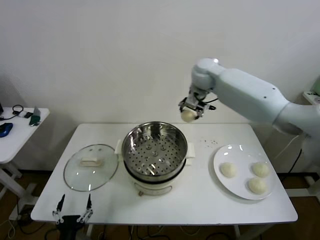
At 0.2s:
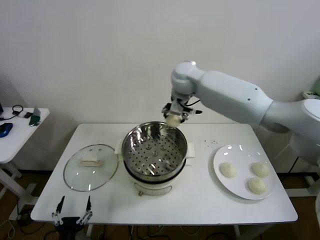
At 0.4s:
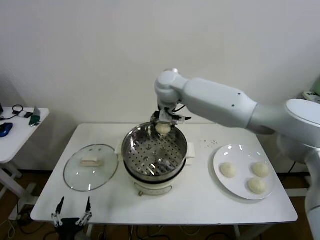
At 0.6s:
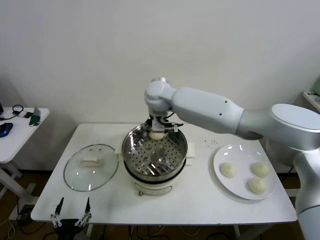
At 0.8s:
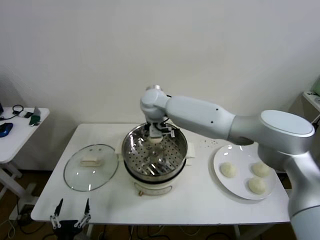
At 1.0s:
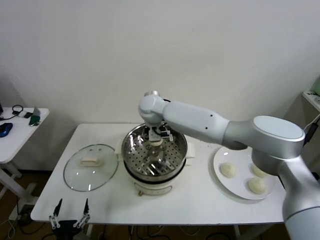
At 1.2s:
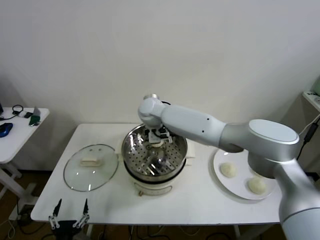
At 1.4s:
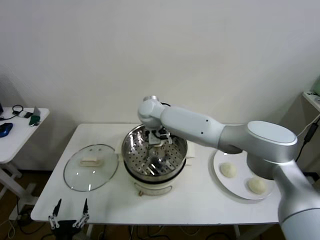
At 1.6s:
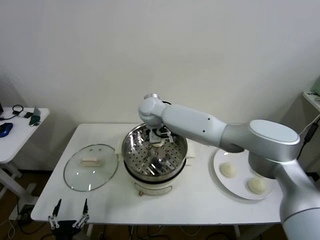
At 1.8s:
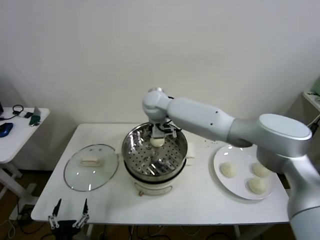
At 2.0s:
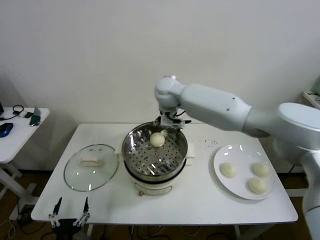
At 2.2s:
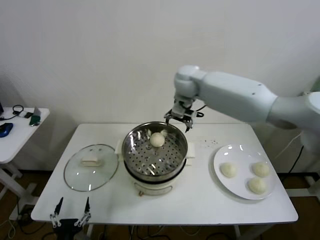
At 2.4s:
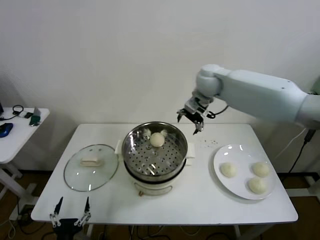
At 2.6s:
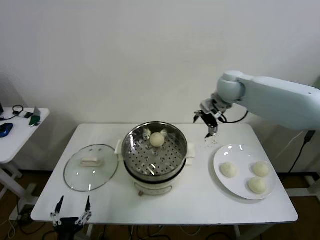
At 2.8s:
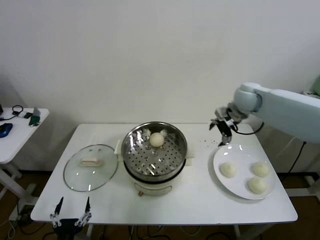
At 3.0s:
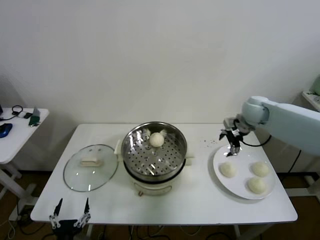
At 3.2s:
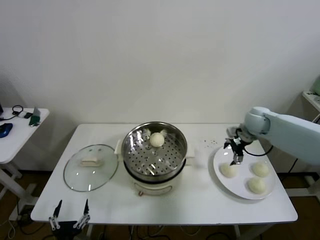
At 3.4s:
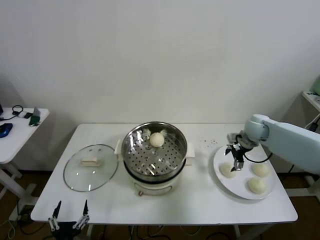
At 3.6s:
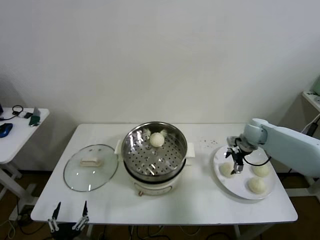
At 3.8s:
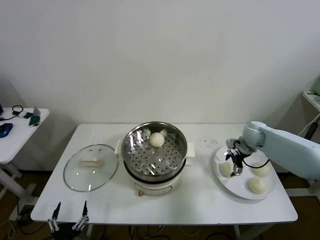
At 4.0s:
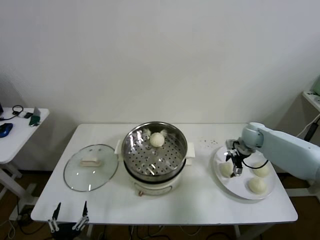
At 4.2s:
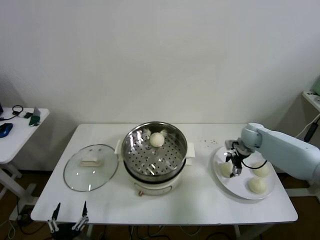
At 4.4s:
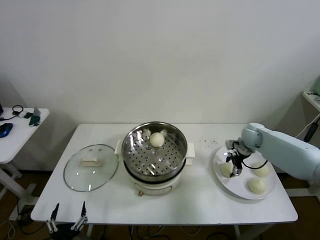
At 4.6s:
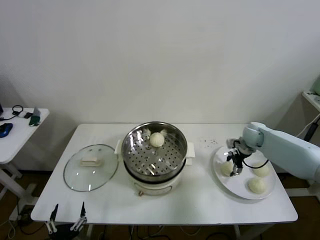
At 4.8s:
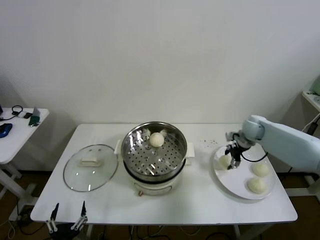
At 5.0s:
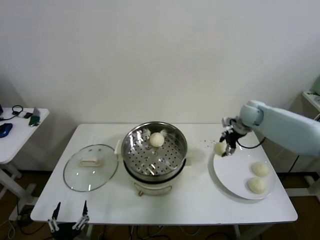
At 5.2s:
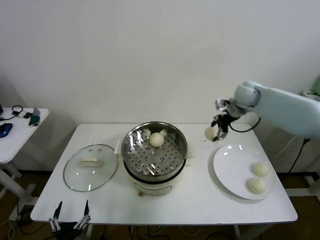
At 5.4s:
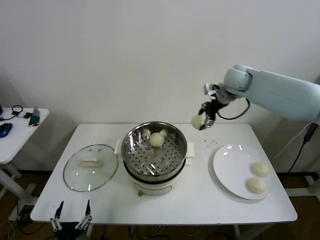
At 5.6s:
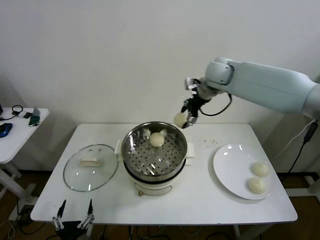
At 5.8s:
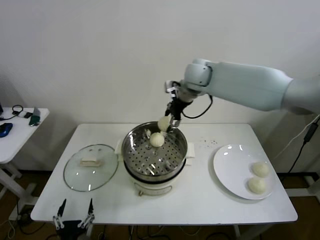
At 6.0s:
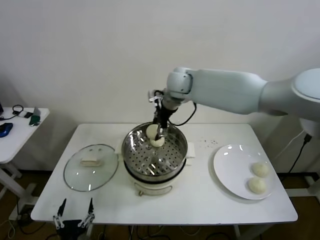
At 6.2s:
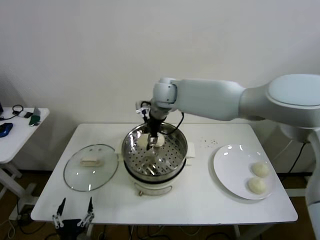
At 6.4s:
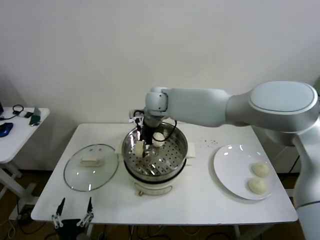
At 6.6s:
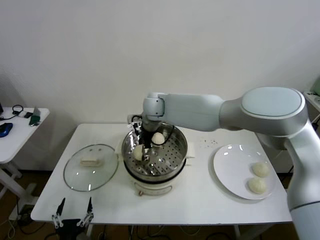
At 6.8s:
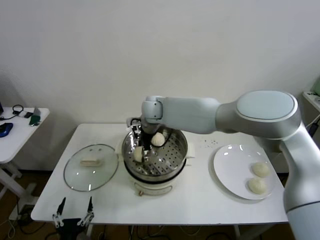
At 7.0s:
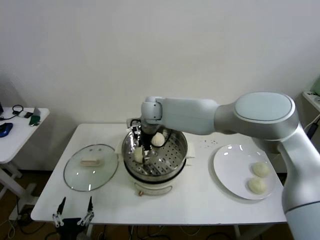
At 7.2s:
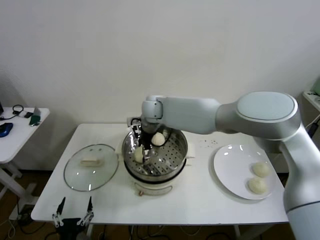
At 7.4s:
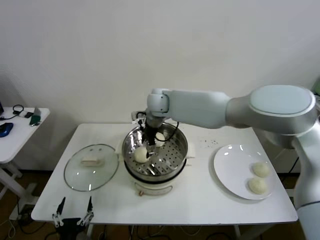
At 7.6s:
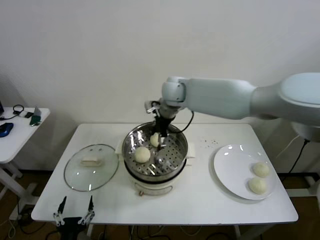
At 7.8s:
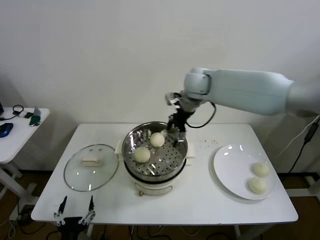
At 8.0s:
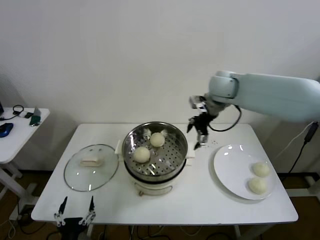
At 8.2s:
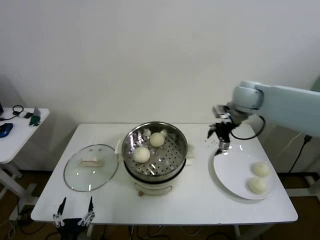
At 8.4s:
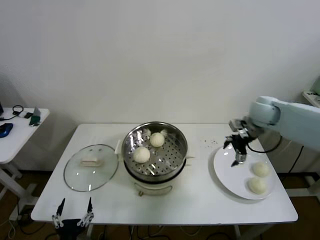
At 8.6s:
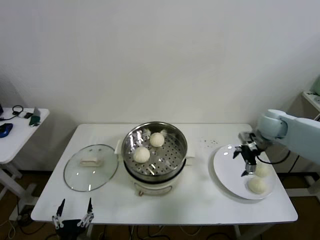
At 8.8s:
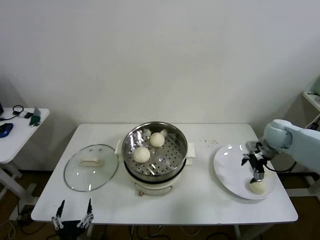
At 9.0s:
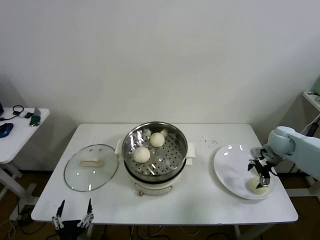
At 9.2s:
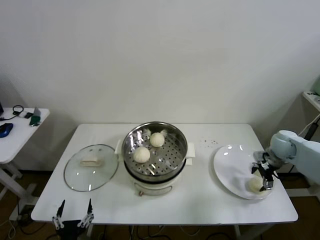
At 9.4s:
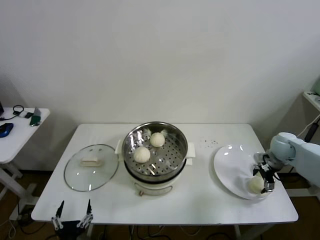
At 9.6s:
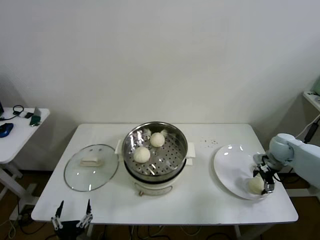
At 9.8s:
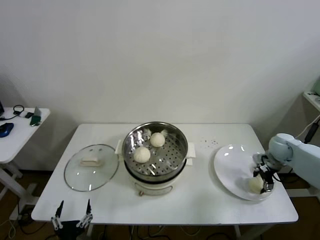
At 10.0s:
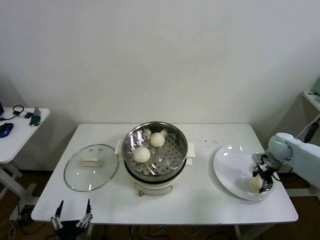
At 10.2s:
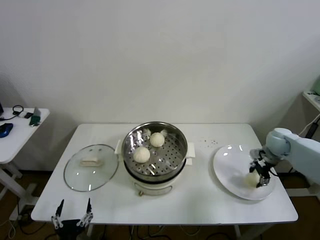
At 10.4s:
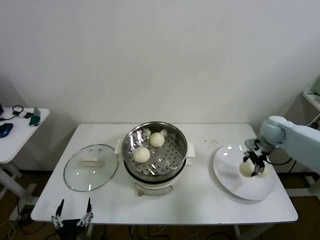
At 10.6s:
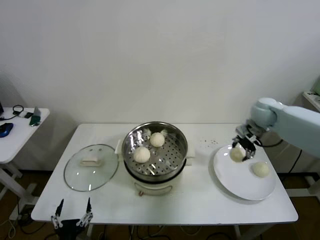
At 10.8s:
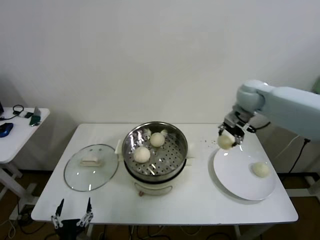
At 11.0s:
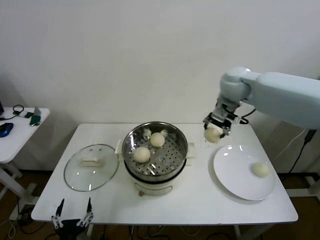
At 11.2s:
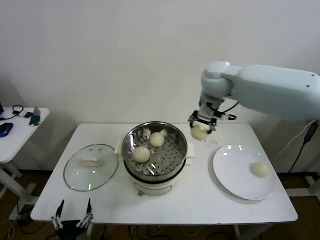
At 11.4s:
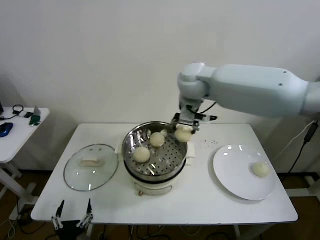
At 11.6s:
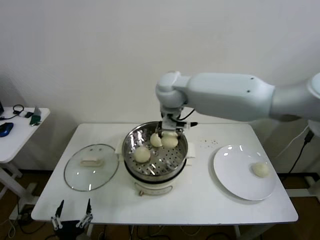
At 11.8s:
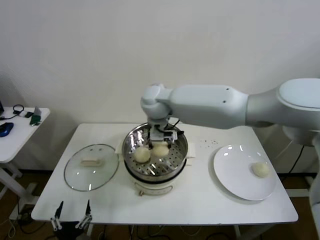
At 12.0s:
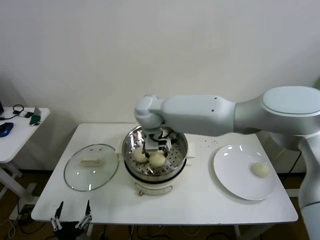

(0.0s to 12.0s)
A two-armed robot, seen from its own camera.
Step, 0.0s - 1.4s: Place the baozi on the steamer with right gripper.
Step, 1.6s - 4.2s: Grasp the baozi in the plate with right gripper.
Step, 4.4s - 7.2s: Place the baozi on the steamer with right gripper.
Step, 7.4s - 10.0s: Grasp the baozi in the plate with right gripper.
0.0s - 1.6s: The right gripper travels to the left and downward by some 15 cm, and opens its fingers.
1.6s - 3.0s: The right gripper goes roughly 35 cm to the right.
3.0s - 4.4s: The right gripper goes about 10 cm downward, and closes its fingers.
4.4s - 6.0s: The right gripper heads to the left and upward, covering approximately 40 cm.
6.0s - 7.6s: The right gripper travels to the left and back again, about 5 cm each way, and opens up.
7.6s - 9.0s: The right gripper goes roughly 40 cm to the right and downward.
9.0s - 10.4s: The right gripper ends up roughly 5 cm from where it was, and closes.
10.4s - 12.0s: The right gripper is displaced to the left by roughly 40 cm.

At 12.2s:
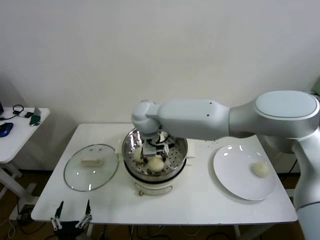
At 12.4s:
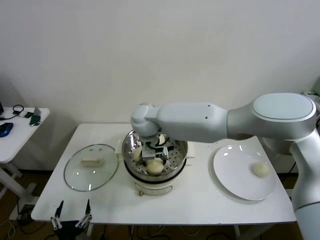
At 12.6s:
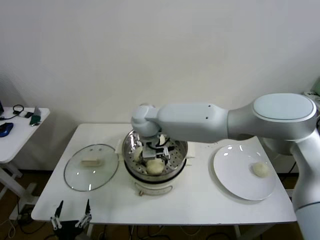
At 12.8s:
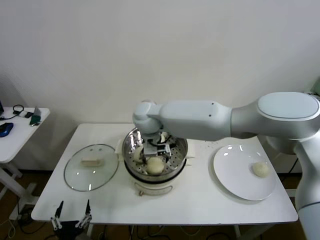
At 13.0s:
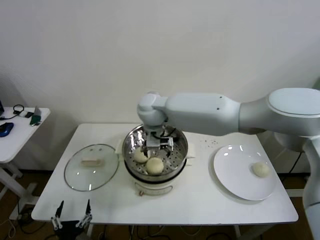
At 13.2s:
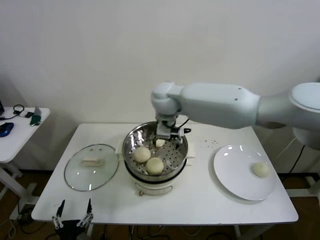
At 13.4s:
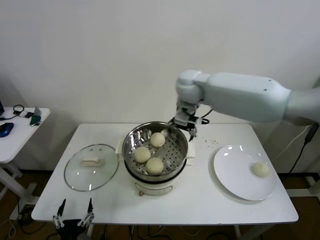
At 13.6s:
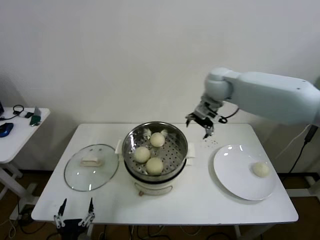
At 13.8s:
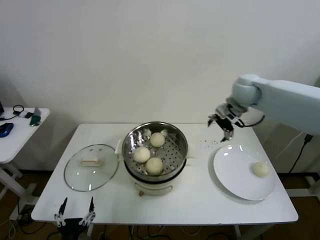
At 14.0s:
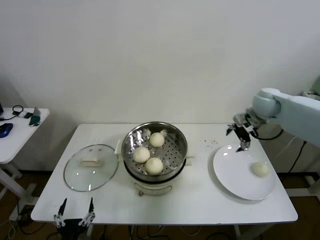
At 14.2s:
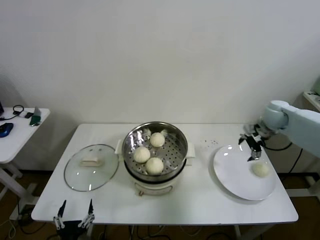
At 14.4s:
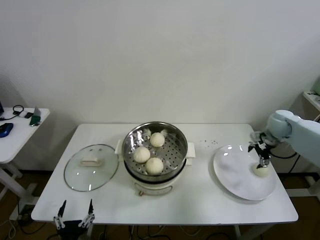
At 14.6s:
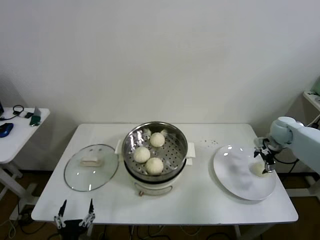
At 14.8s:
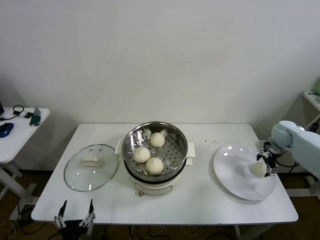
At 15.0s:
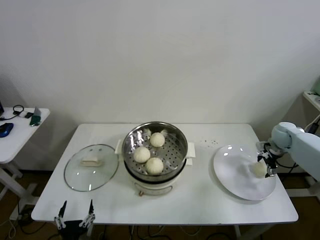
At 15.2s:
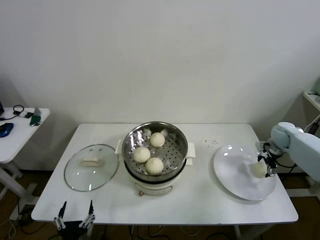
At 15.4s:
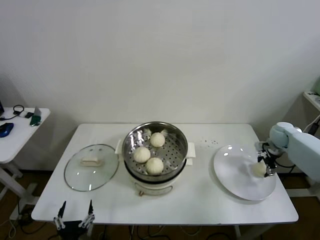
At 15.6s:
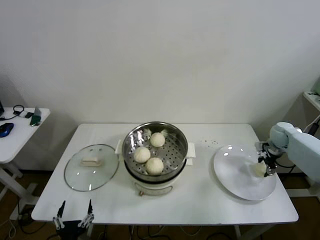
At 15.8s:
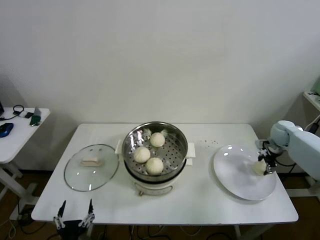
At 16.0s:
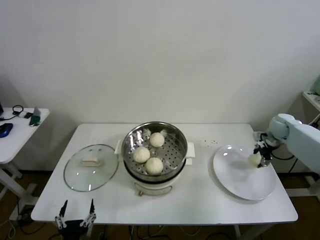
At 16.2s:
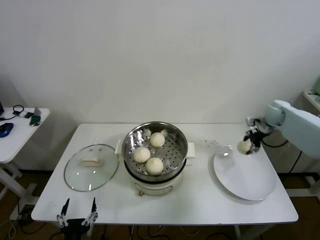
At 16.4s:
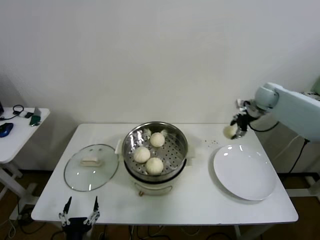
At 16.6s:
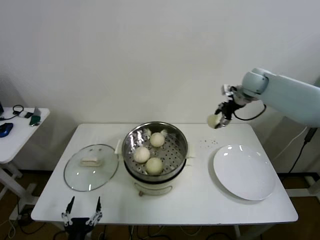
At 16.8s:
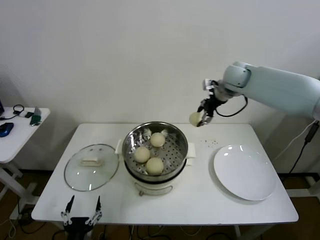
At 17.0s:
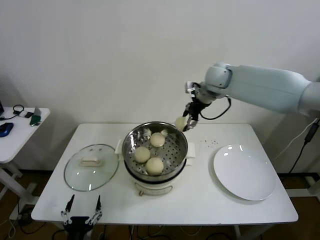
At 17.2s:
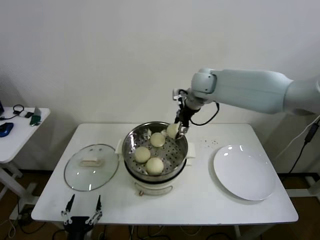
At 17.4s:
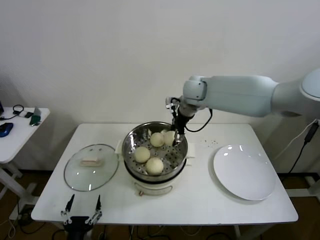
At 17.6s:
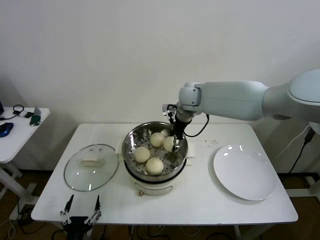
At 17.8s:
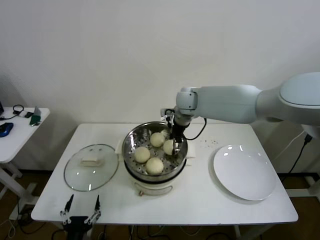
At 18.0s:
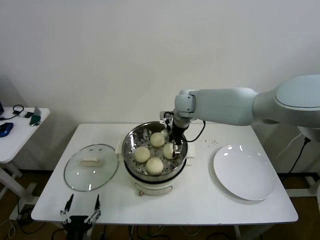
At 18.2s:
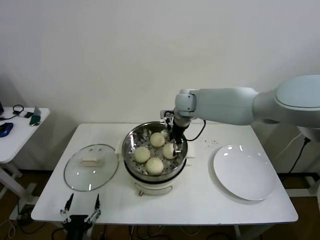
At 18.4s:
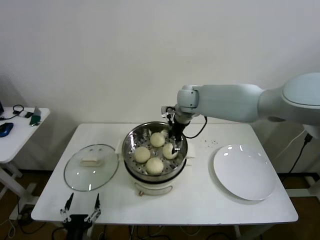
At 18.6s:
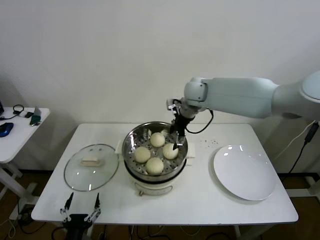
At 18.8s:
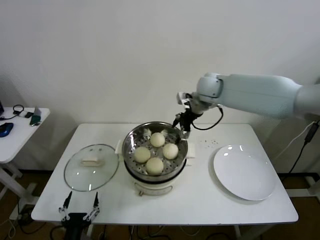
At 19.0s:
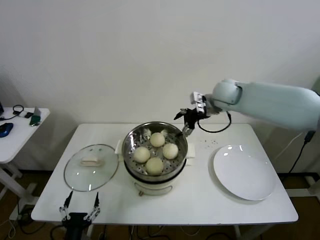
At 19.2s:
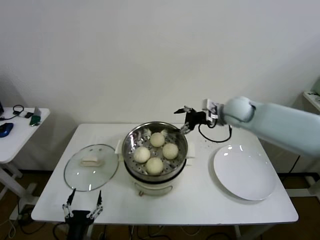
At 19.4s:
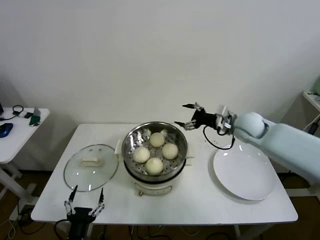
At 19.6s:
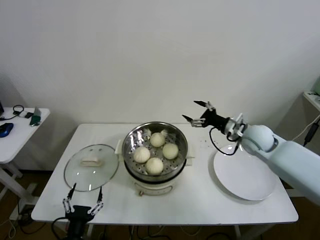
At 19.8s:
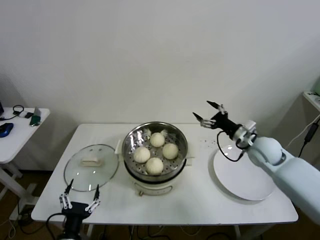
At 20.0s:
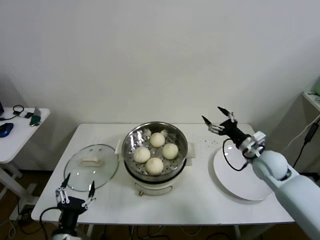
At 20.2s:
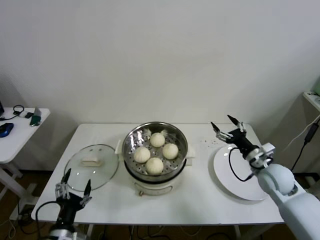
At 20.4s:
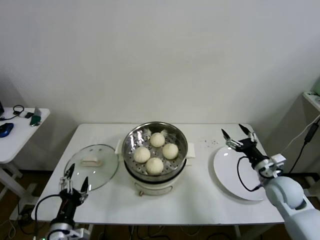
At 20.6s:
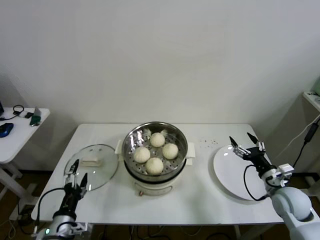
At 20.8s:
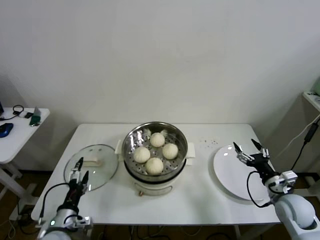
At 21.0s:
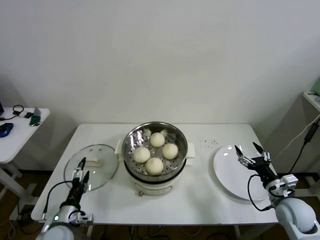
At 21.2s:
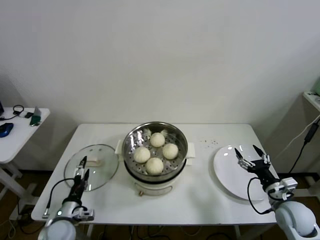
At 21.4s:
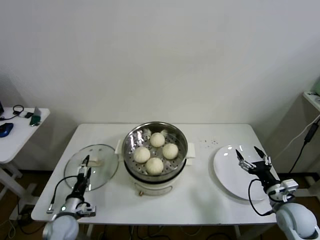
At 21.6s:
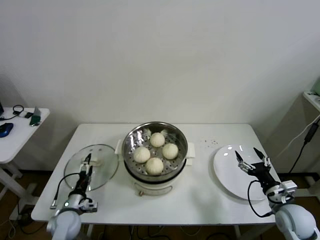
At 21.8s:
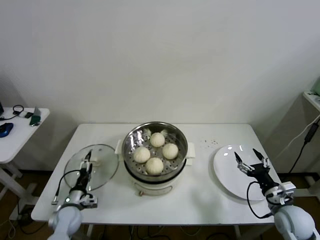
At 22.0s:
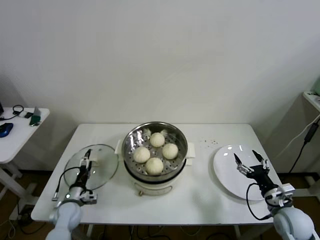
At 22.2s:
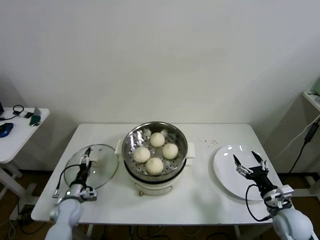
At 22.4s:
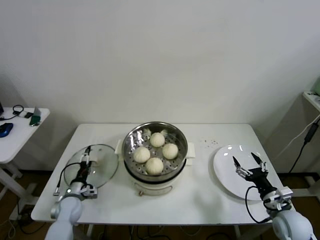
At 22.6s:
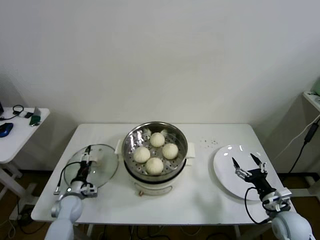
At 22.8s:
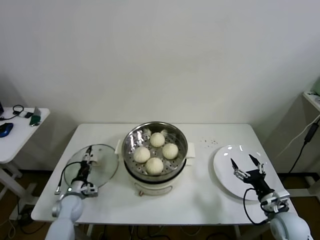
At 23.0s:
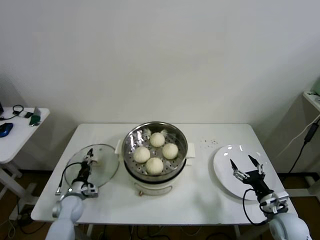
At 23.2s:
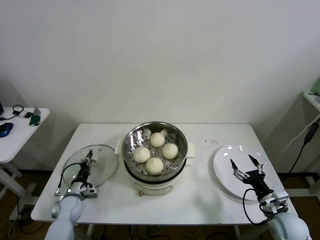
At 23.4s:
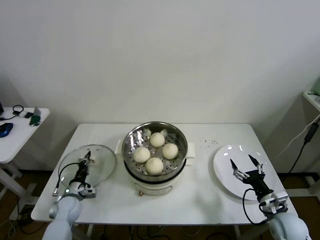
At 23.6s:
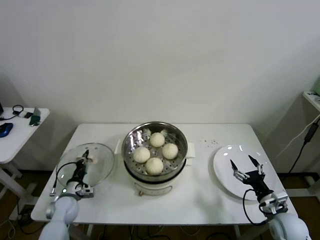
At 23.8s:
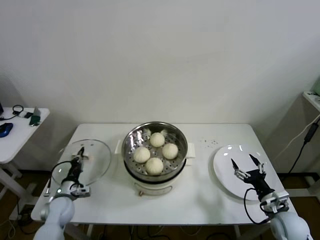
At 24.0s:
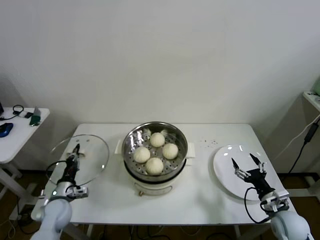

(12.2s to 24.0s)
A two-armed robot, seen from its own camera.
Step, 12.6s - 15.4s: Grasp the baozi in the plate with right gripper.
Step, 15.6s - 18.0s: Place the baozi on the steamer with right gripper.
Step, 18.2s - 23.2s: Grasp the pot lid with left gripper.
12.2s - 13.6s: The right gripper heads to the right, covering approximately 25 cm, and opens its fingers.
13.6s - 15.2s: The right gripper shifts approximately 35 cm to the right and downward.
15.2s - 16.6s: The right gripper is displaced upward and to the left by roughly 25 cm, and closes.
16.6s - 18.2s: The right gripper shifts some 25 cm to the left, and opens its fingers.
18.2s - 19.6s: The right gripper is displaced to the right and backward by approximately 25 cm.
19.6s - 21.0s: The right gripper travels backward, downward and to the right by about 25 cm; the left gripper travels forward and to the left by about 10 cm.
21.0s - 22.6s: The left gripper goes about 15 cm forward and downward.
22.6s - 24.0s: The left gripper travels upward by roughly 5 cm, and closes.
